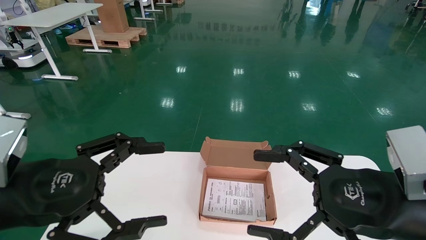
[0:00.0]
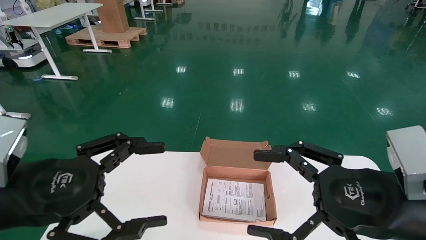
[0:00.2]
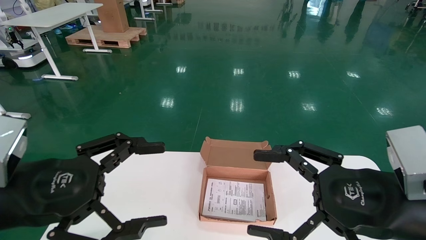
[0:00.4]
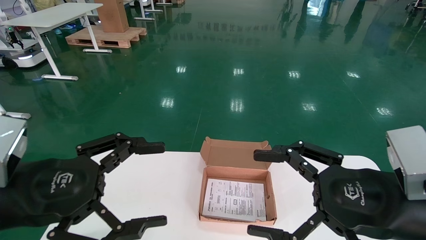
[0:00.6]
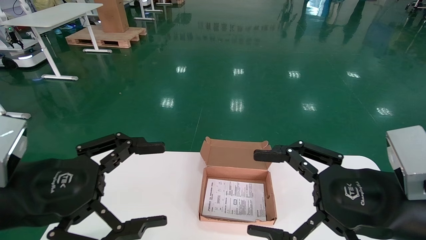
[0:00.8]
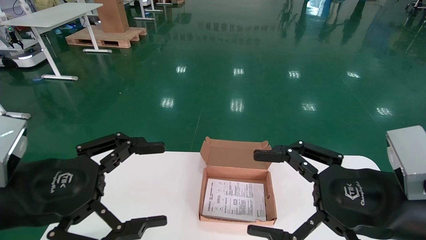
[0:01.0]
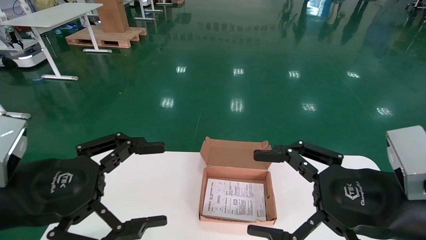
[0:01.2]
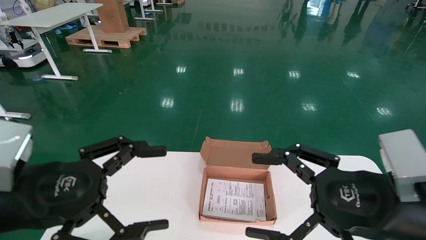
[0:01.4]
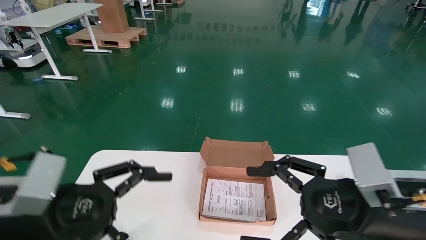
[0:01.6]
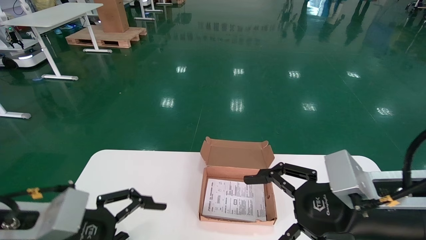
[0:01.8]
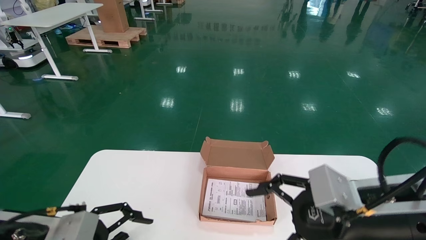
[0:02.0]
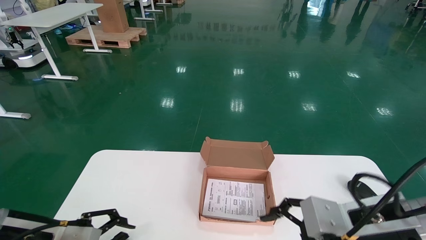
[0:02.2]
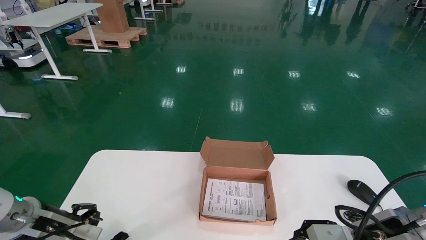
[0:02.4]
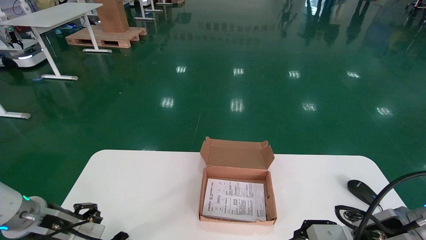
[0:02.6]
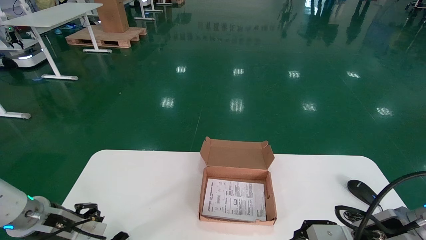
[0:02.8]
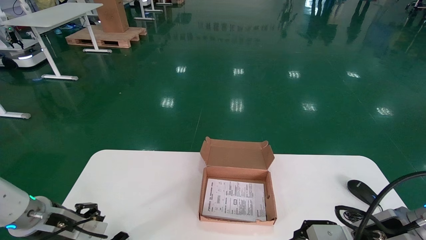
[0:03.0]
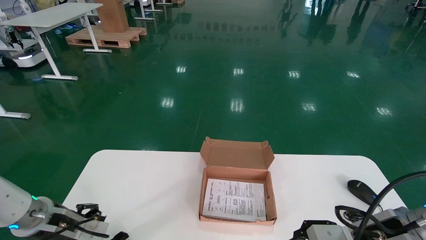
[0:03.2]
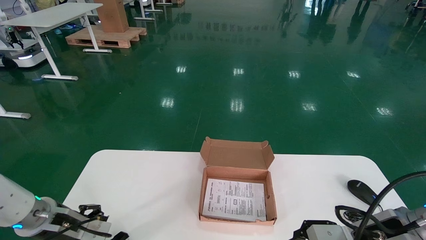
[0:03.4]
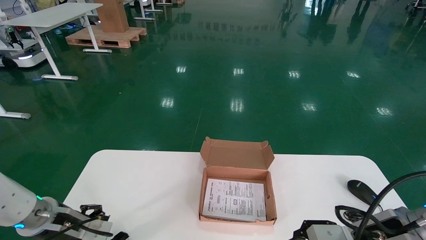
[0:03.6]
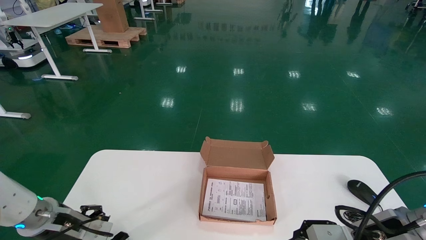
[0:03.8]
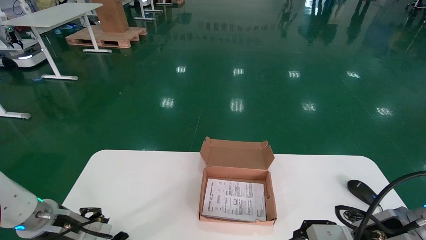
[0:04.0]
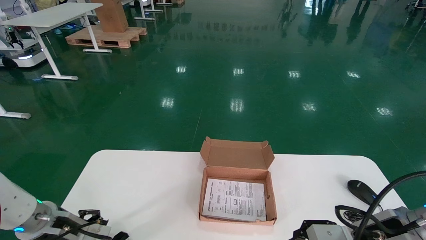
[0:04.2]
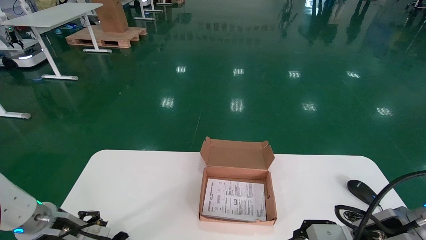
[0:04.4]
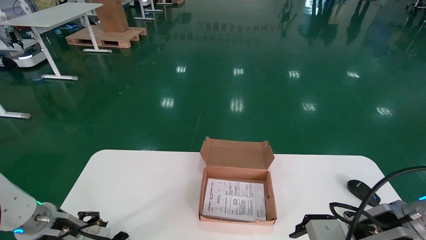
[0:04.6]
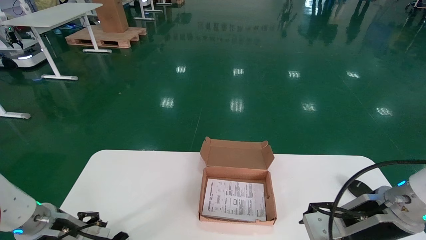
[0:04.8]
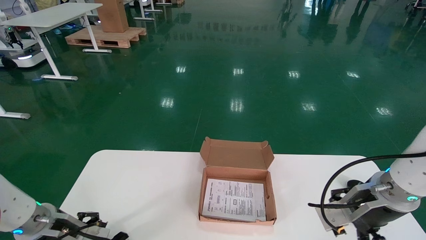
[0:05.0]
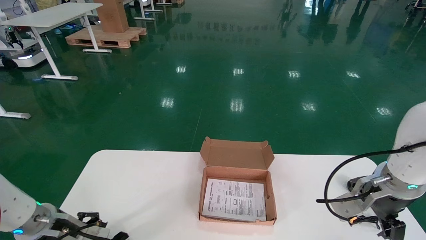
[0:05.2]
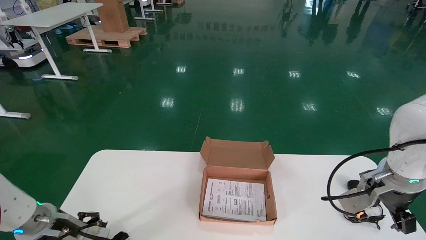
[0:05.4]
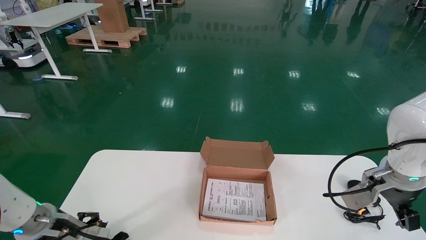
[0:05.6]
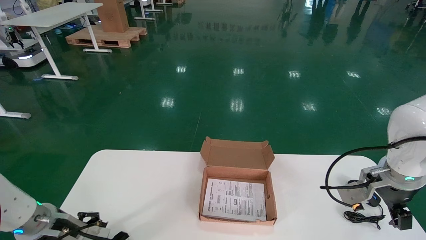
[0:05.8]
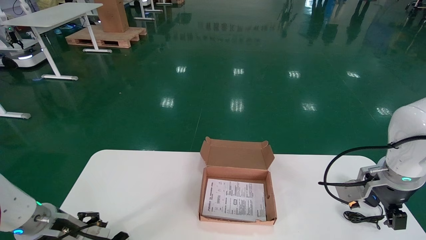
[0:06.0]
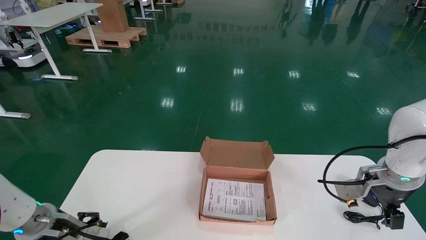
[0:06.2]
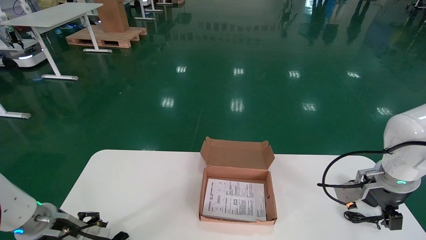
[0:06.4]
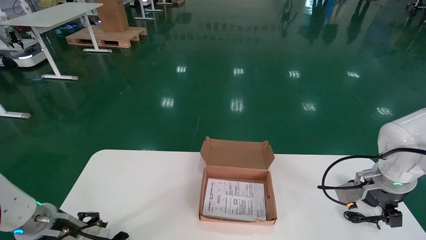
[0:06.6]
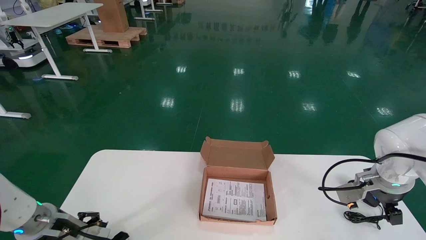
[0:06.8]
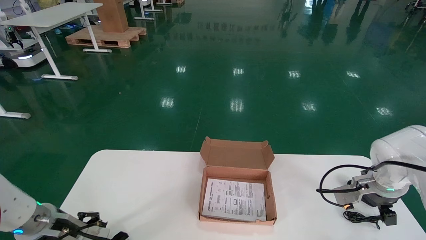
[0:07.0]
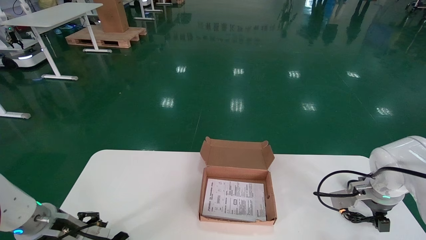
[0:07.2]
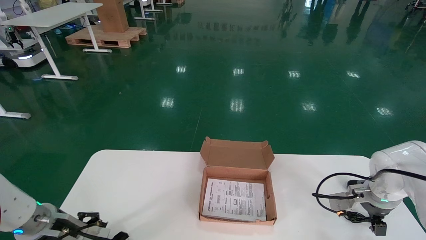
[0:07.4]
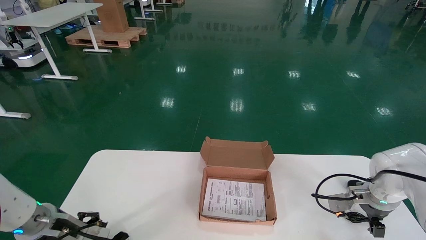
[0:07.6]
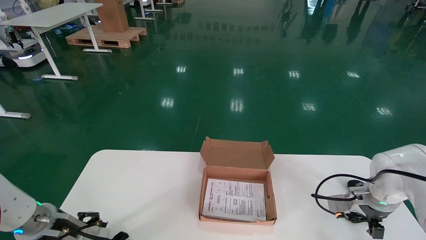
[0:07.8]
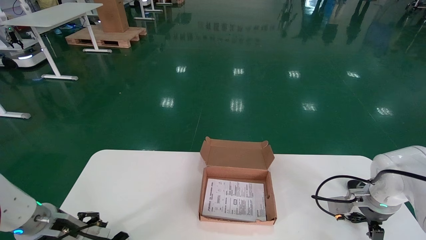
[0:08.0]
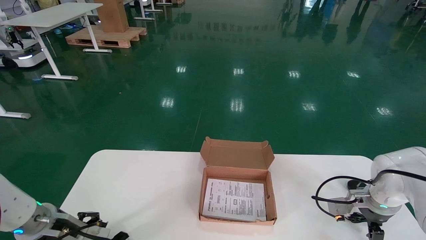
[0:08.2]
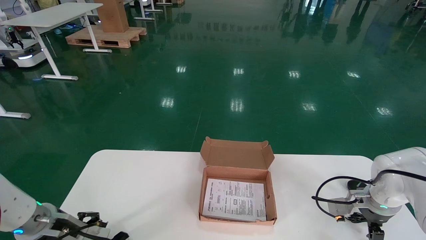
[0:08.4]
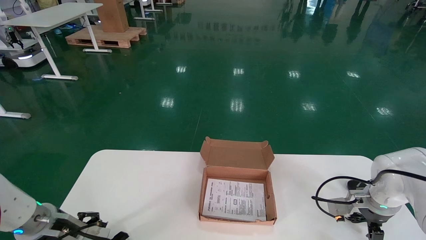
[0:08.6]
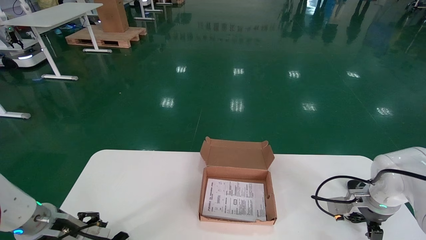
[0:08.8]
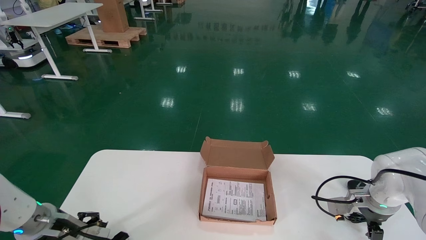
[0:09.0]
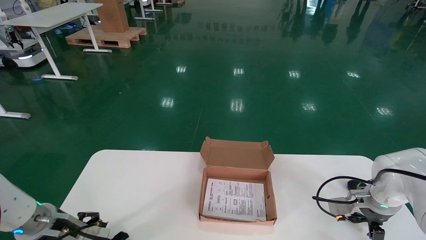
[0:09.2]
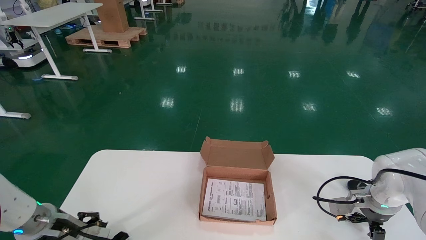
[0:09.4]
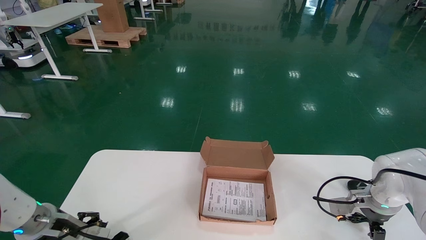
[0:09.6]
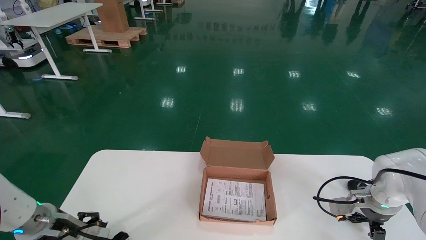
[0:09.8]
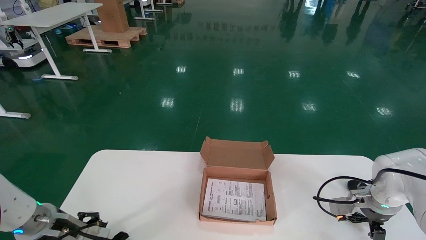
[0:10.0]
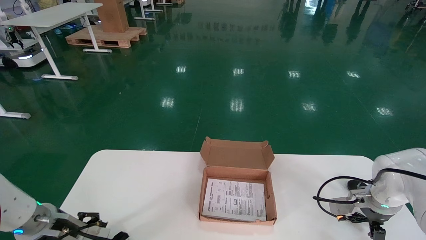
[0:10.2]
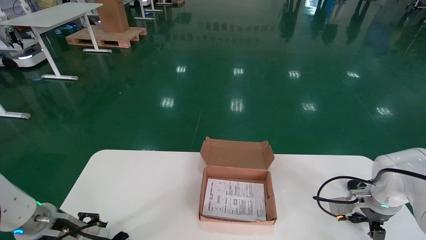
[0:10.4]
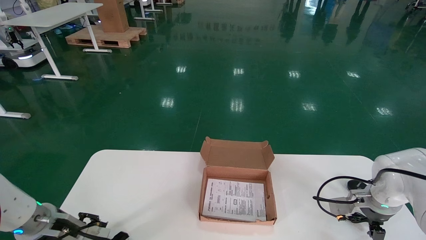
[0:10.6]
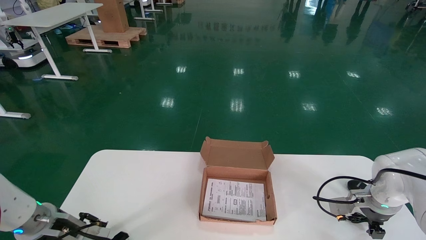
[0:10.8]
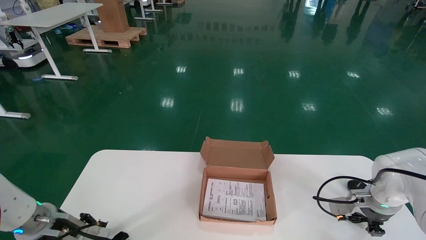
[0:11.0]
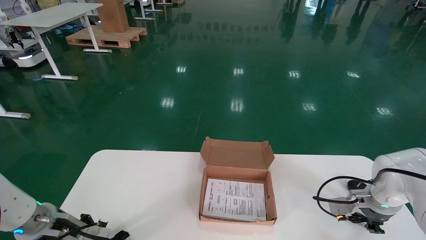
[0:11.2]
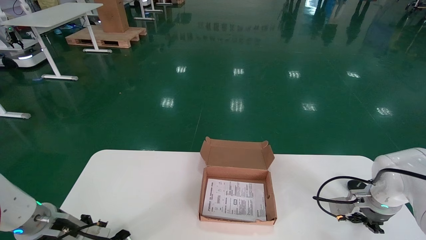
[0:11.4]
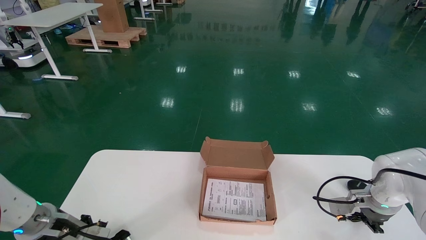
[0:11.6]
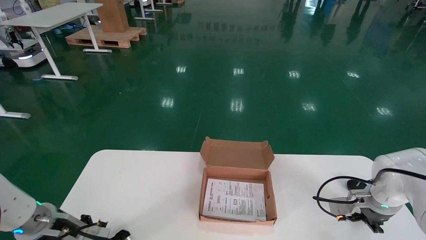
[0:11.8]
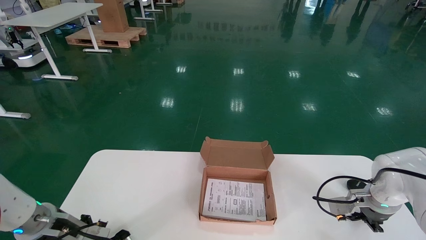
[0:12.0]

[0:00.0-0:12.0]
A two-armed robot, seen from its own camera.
0:01.6 to 0:03.0: The right gripper travels downward by approximately 5 cm. Meanwhile the left gripper goes roughly 15 cm downward, forward and to the left.
0:03.0 to 0:04.4: The left gripper changes place by roughly 5 cm.
0:04.4 to 0:06.0: The right gripper goes roughly 10 cm forward.
0:06.0 to 0:07.6: The right gripper shifts roughly 5 cm forward.
0:07.6 to 0:09.0: The right gripper shifts roughly 5 cm downward.
0:09.0 to 0:10.4: Both grippers stay about where they are.

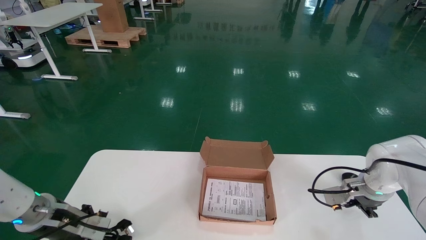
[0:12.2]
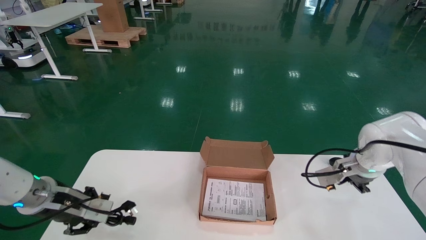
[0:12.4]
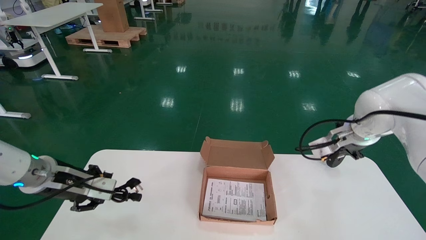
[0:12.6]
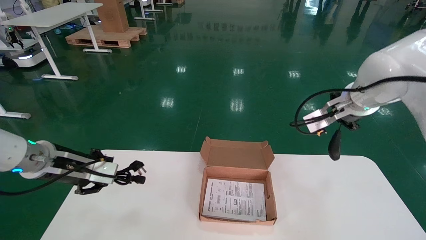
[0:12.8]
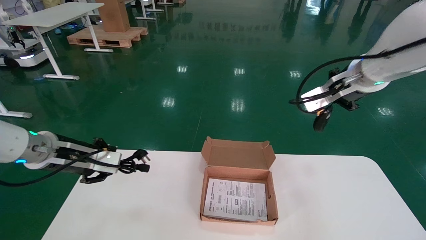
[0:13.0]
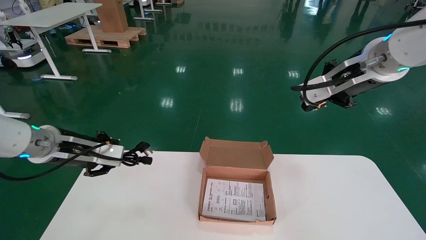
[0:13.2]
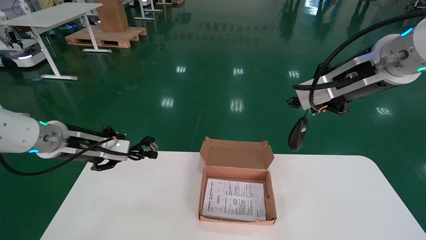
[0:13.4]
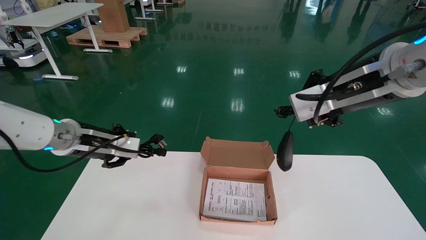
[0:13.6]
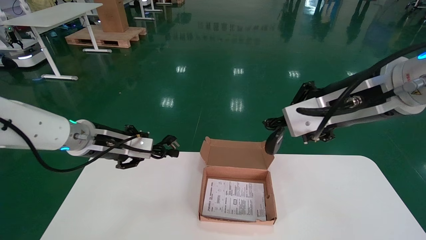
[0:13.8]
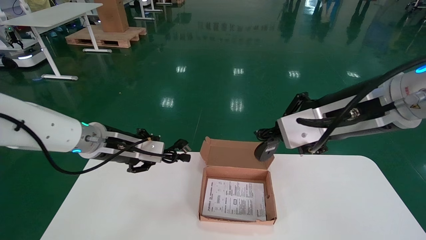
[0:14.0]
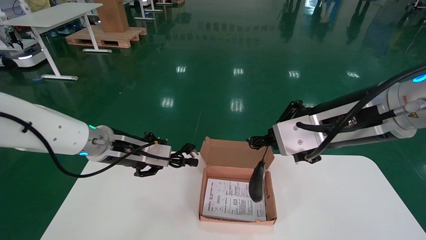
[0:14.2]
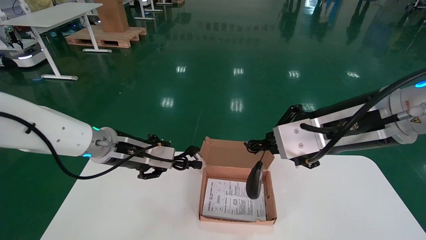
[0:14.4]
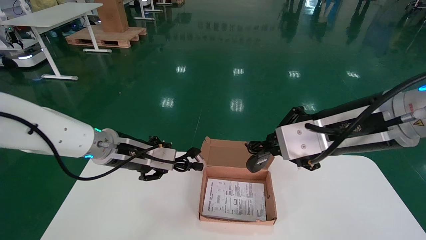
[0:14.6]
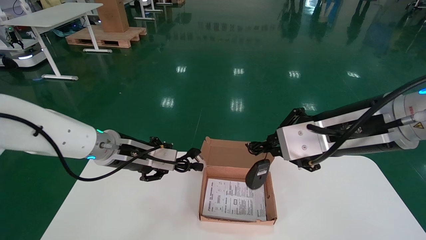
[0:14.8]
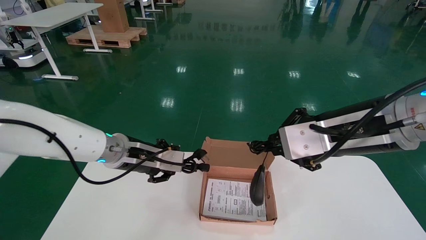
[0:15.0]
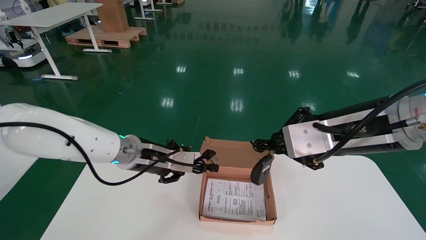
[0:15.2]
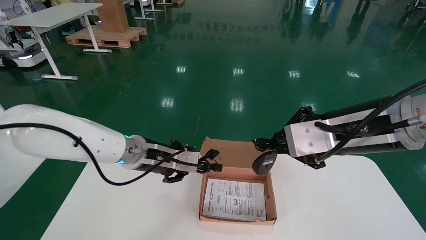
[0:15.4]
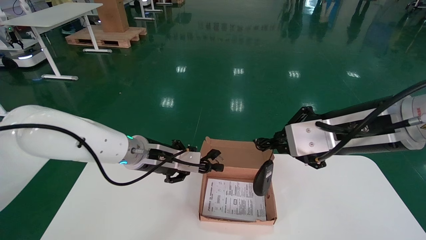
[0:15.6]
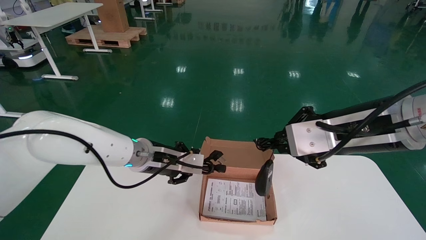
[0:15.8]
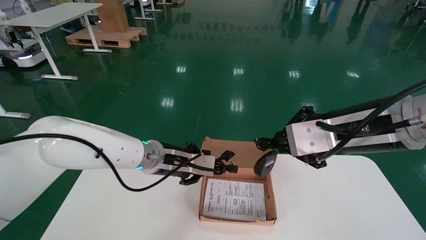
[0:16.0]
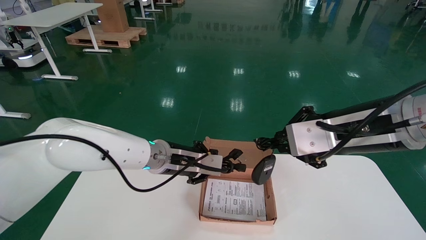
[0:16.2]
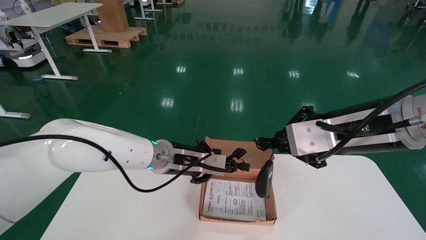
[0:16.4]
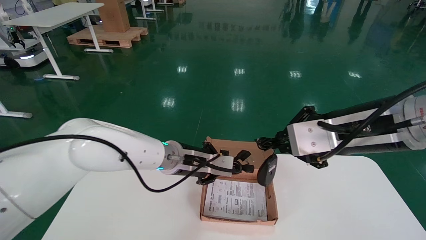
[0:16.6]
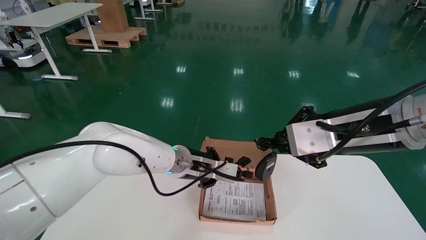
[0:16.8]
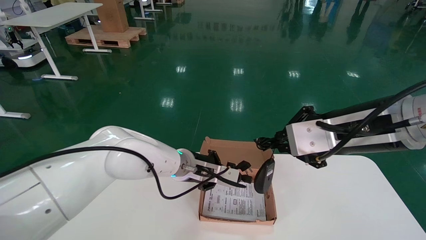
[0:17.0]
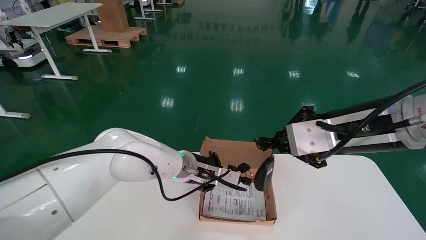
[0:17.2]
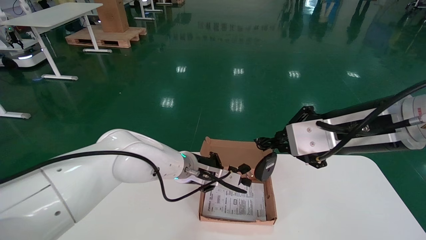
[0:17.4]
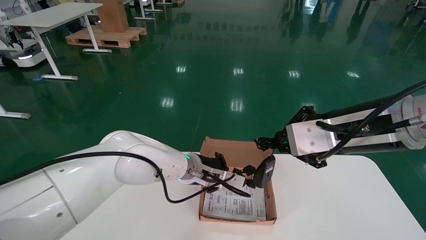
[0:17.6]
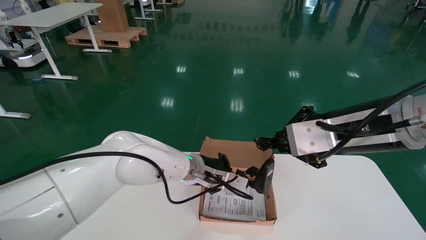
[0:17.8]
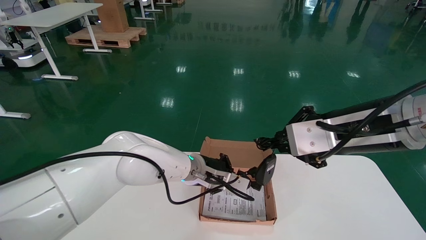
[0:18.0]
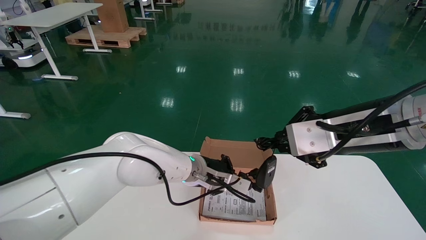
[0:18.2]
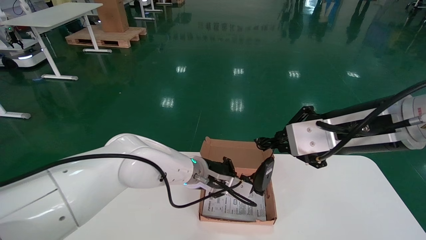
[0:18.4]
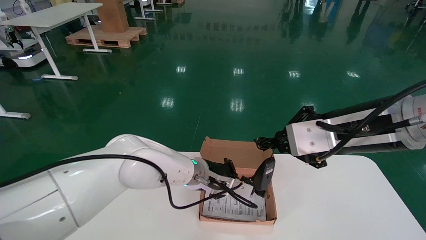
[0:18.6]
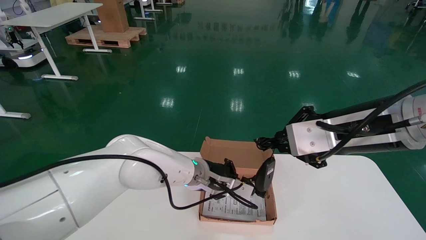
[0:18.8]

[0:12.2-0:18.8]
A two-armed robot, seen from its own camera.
0:12.2 to 0:13.8: The right gripper is displaced upward by about 25 cm, and closes its fingers, while the left gripper goes roughly 15 cm upward, and closes up.
0:13.8 to 0:15.4: The right gripper travels backward and to the left by approximately 20 cm. Meanwhile the left gripper shifts approximately 10 cm to the right.
0:15.4 to 0:17.2: The left gripper heads to the right, covering approximately 10 cm.
0:17.2 to 0:18.8: The left gripper goes some 5 cm to the right.
